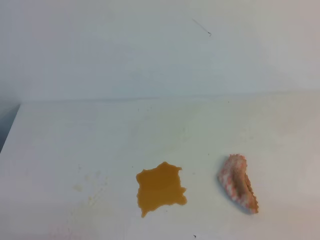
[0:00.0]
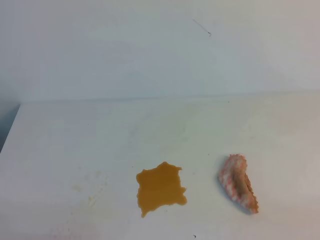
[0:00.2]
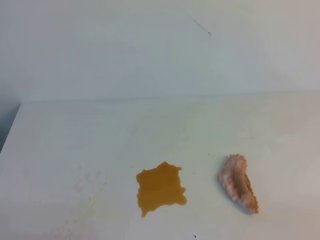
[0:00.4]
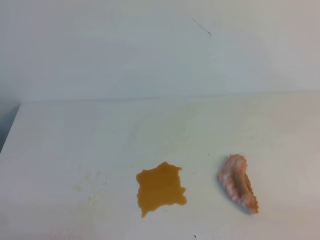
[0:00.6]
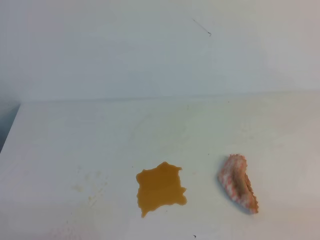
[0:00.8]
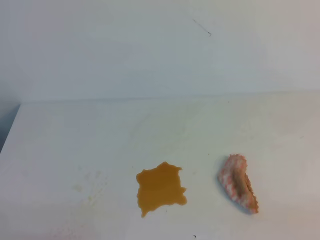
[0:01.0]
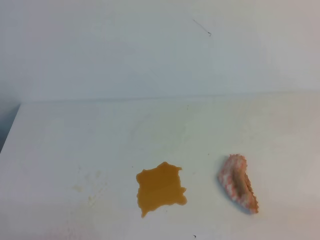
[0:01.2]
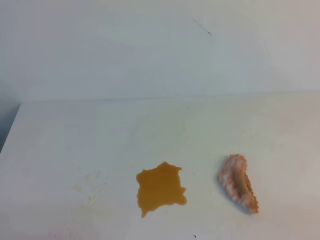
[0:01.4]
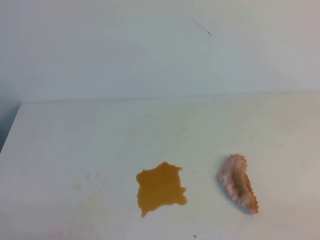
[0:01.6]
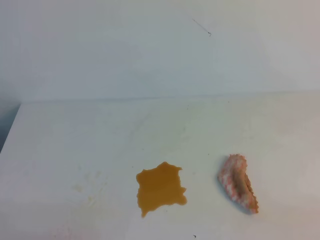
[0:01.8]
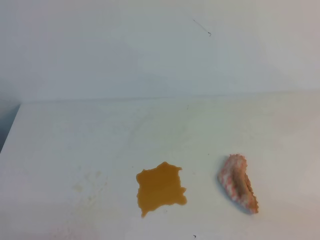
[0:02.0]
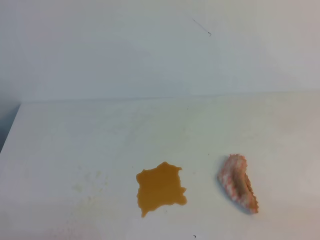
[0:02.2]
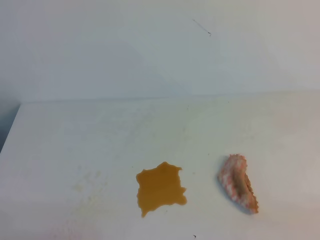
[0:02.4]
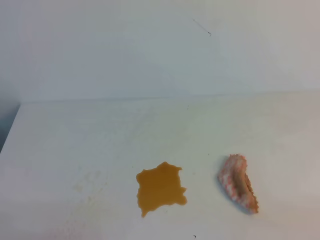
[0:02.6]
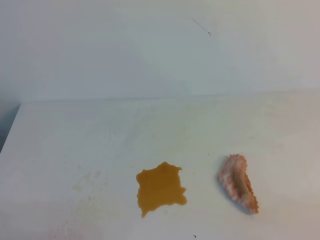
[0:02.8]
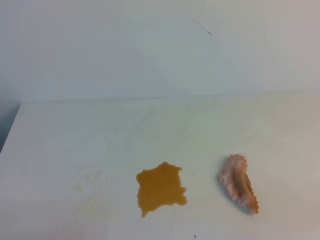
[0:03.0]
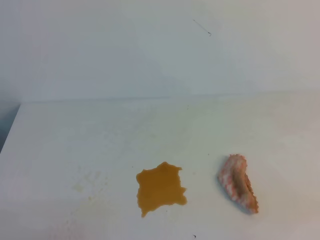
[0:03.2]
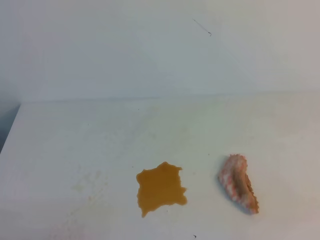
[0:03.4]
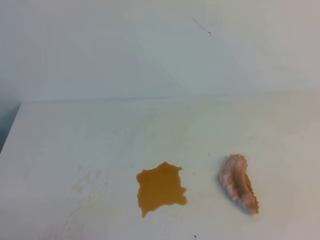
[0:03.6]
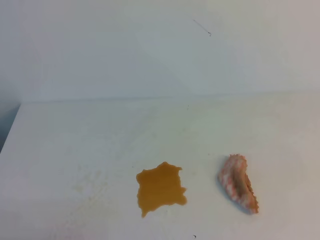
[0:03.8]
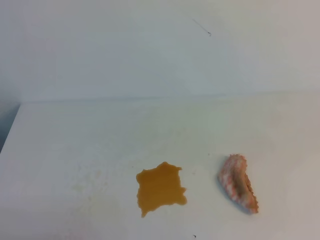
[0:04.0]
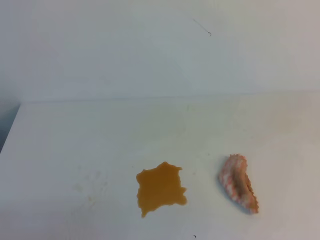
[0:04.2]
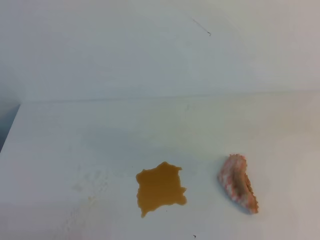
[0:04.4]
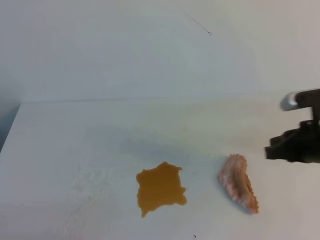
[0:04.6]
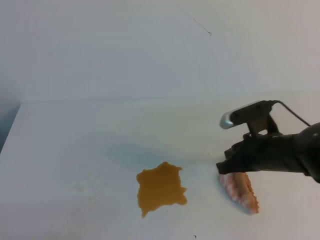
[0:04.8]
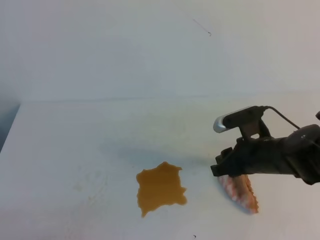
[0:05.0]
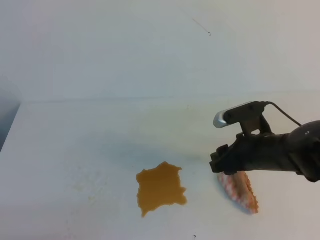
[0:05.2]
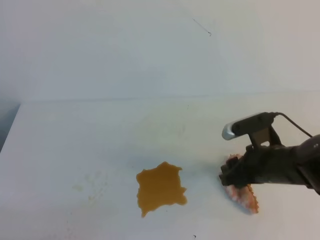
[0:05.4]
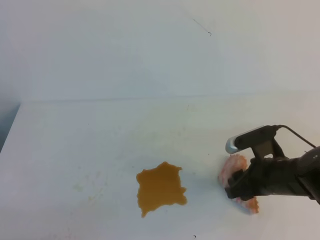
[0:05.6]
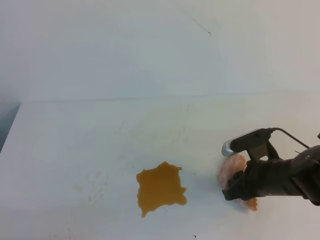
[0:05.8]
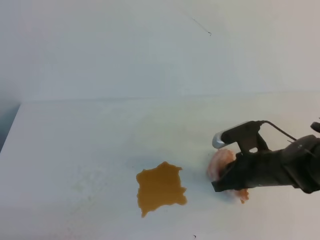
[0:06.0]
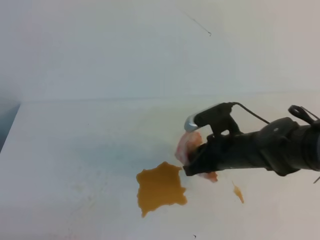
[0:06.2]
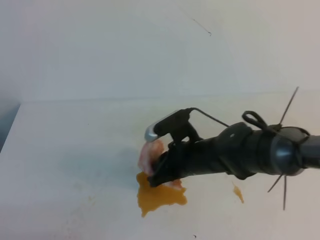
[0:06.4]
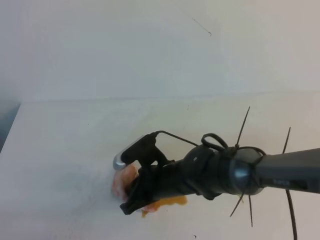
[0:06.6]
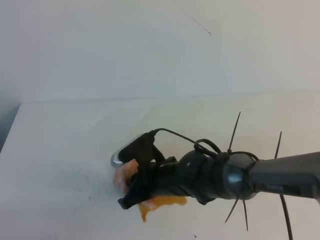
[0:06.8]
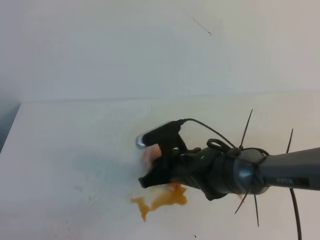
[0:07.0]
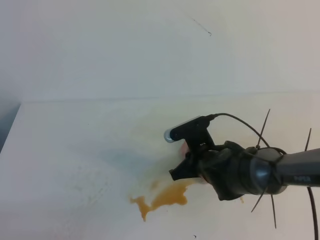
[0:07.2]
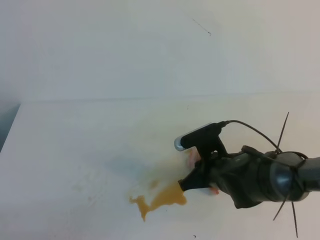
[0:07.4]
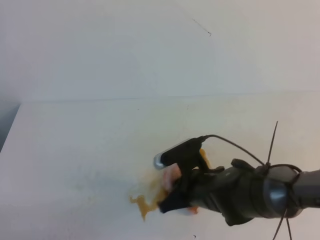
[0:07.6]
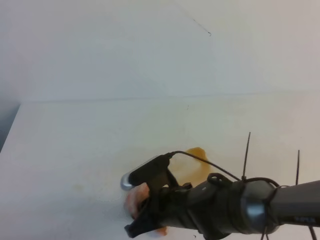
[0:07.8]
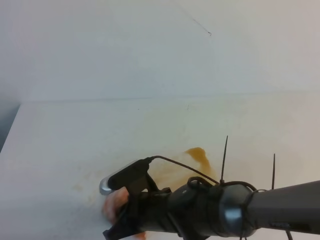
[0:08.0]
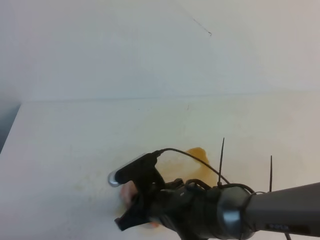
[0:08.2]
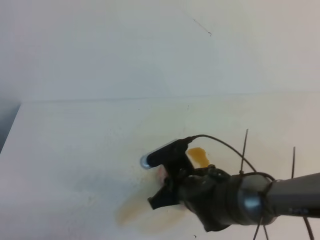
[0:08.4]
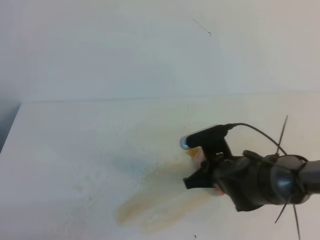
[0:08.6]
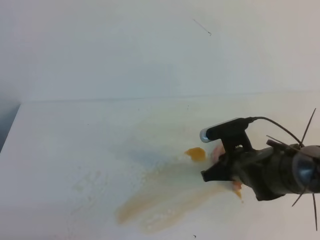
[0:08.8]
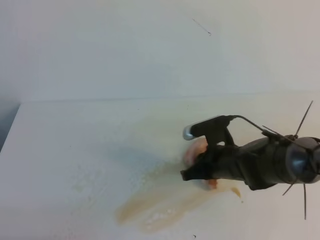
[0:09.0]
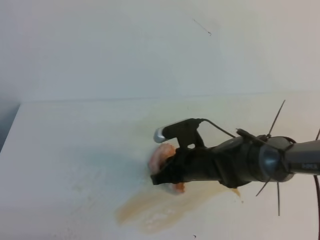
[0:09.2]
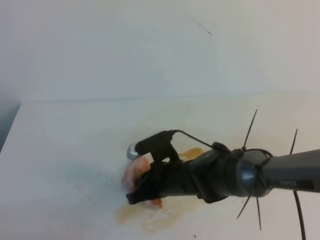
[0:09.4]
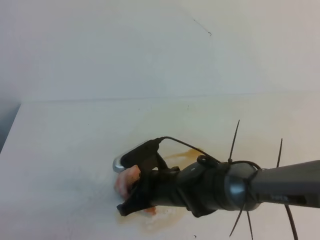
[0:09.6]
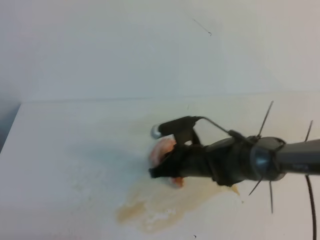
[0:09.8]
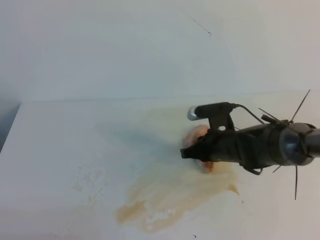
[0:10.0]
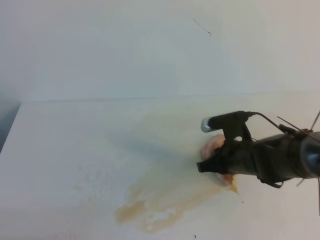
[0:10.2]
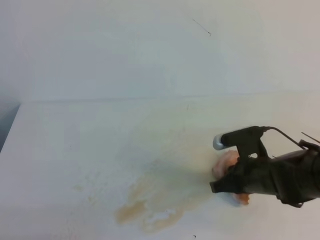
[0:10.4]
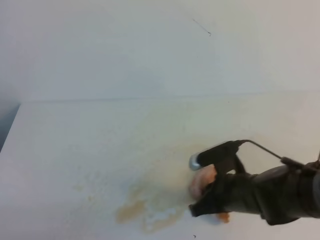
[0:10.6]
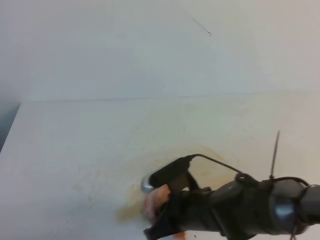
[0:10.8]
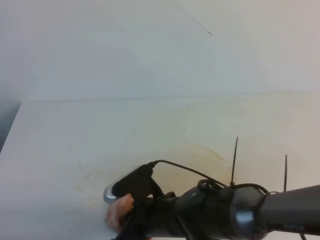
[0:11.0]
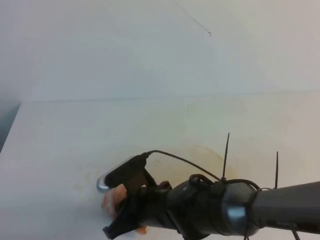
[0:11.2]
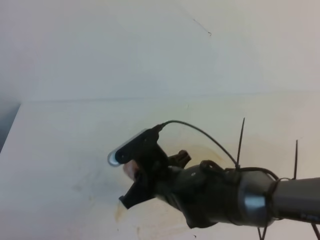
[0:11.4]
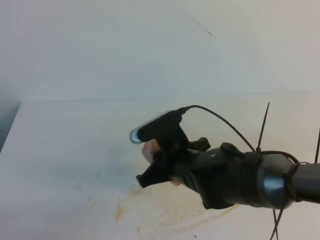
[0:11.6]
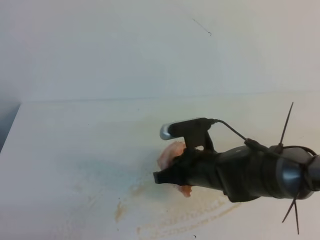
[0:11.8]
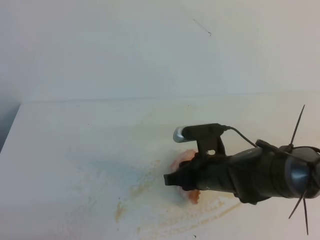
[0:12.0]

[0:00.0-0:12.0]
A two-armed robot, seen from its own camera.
0:00.0 to 0:01.6: The two grippers keep their place.
0:04.4 to 0:06.0: The right gripper is displaced downward, to the left and forward by about 25 cm, and opens.
0:06.0 to 0:07.6: The right gripper is displaced to the left by roughly 10 cm.
0:07.6 to 0:09.0: The right gripper ends up some 5 cm from where it was.
0:09.0 to 0:10.4: The right gripper reaches about 10 cm to the left, then returns.
0:10.4 to 0:12.0: The right gripper goes roughly 5 cm to the left, and opens.

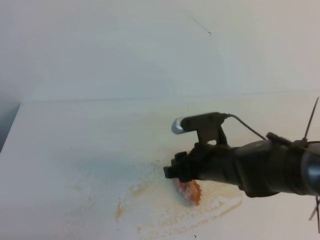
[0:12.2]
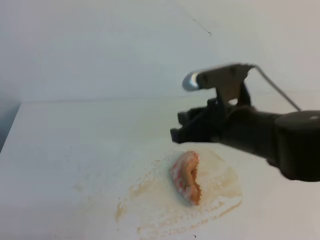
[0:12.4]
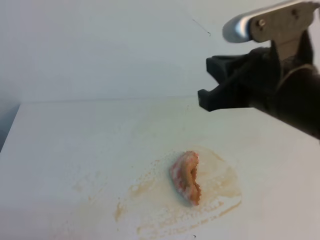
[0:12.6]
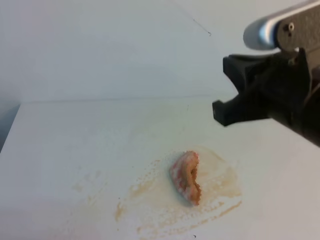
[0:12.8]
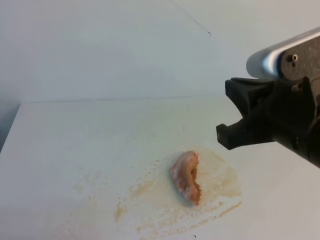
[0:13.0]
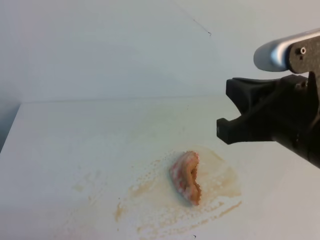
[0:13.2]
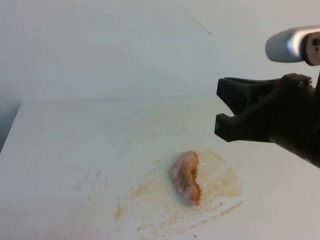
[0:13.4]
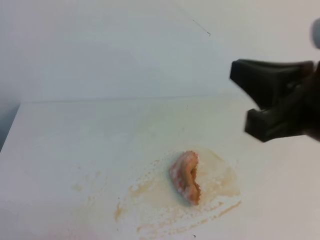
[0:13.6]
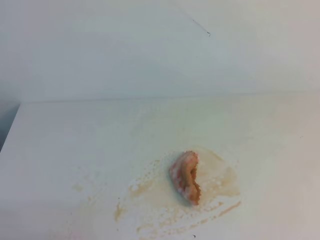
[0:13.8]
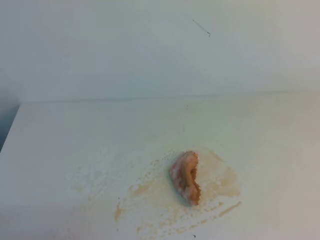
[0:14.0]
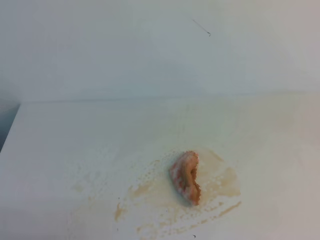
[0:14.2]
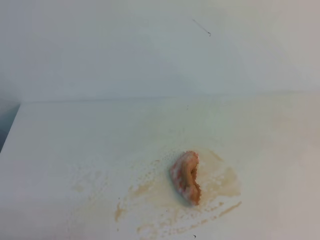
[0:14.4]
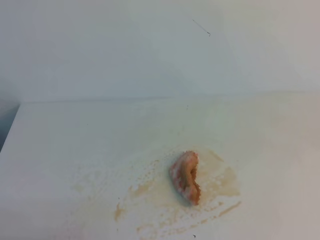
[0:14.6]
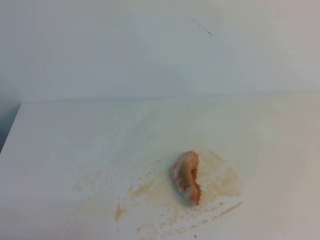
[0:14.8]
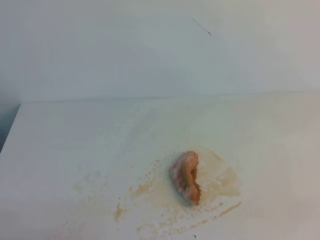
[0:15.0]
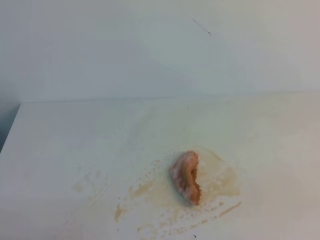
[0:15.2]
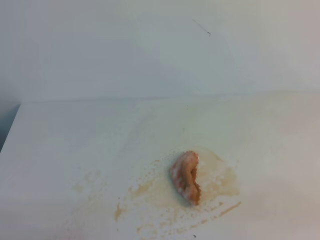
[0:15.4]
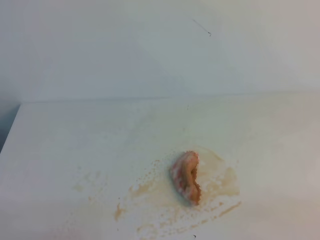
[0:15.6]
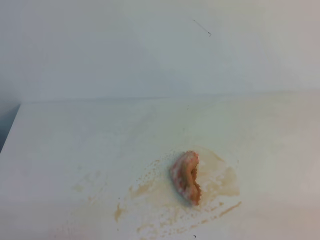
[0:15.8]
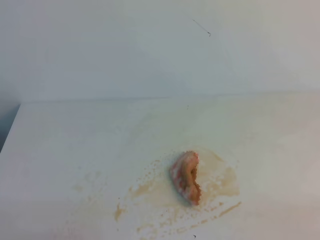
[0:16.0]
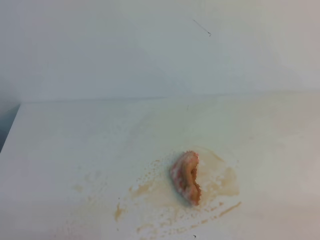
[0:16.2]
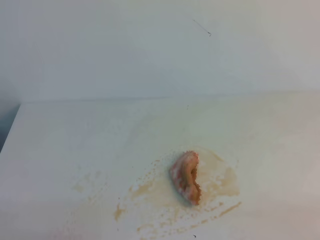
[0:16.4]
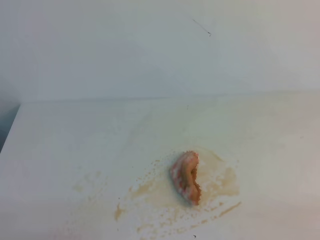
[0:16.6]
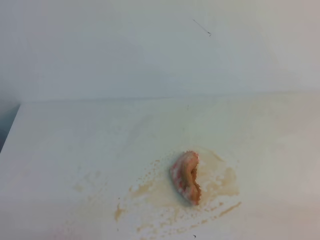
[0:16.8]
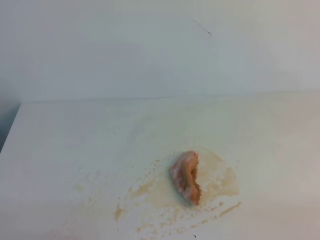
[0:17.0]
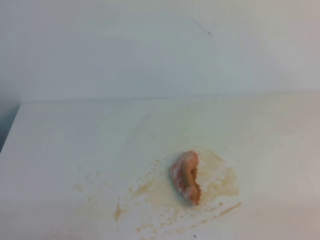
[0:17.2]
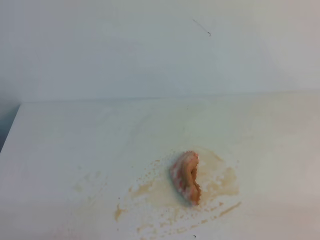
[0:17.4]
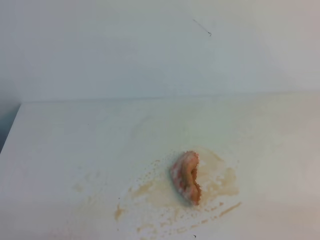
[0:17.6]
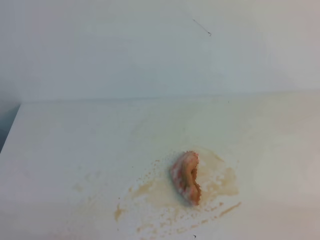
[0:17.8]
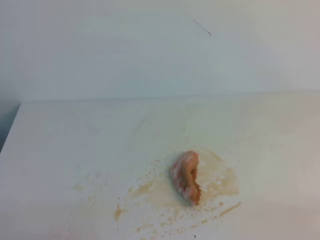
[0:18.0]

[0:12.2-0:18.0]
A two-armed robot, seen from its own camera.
0:12.2 to 0:13.6: The right gripper travels upward and backward by roughly 25 cm, and closes up.
0:13.6 to 0:15.0: The right gripper heads to the right, backward and downward, covering roughly 20 cm.
0:16.6 to 0:18.0: Neither gripper changes place.
